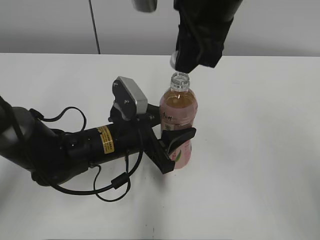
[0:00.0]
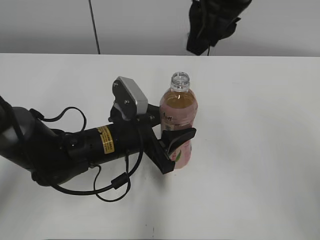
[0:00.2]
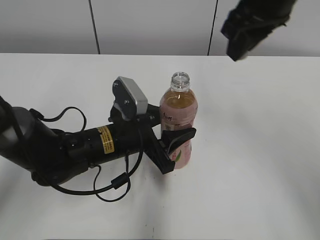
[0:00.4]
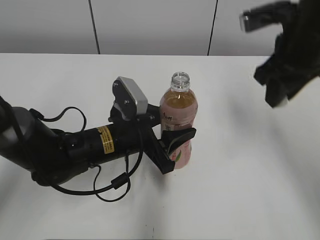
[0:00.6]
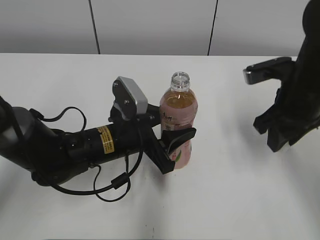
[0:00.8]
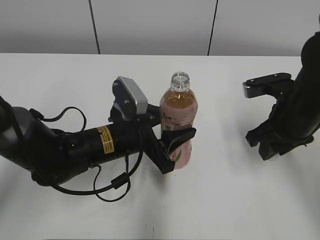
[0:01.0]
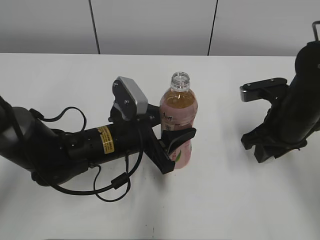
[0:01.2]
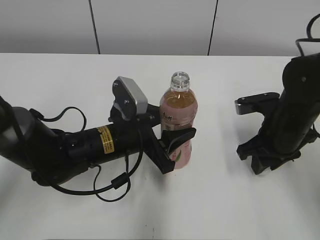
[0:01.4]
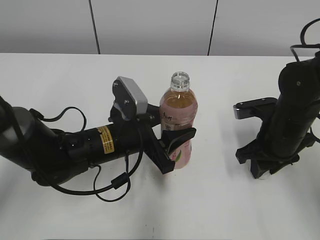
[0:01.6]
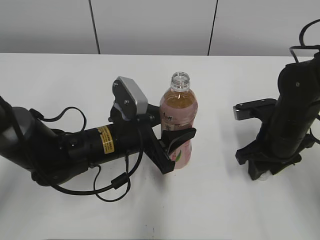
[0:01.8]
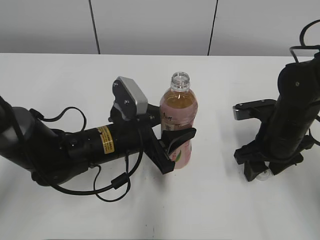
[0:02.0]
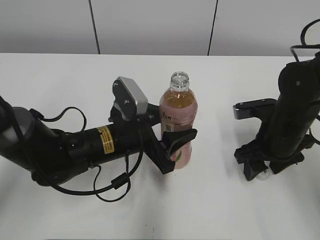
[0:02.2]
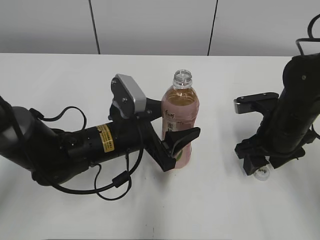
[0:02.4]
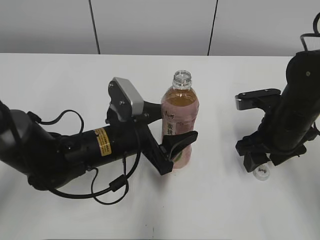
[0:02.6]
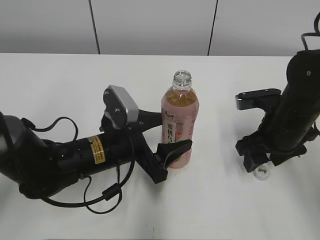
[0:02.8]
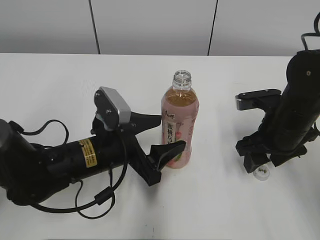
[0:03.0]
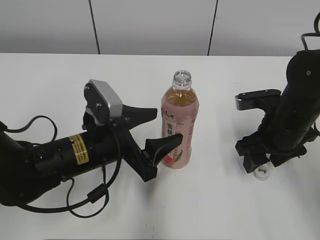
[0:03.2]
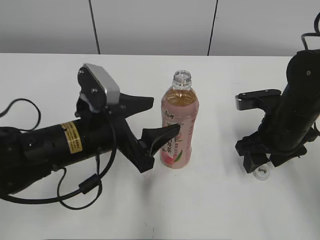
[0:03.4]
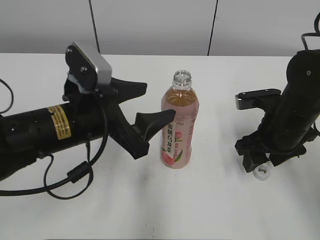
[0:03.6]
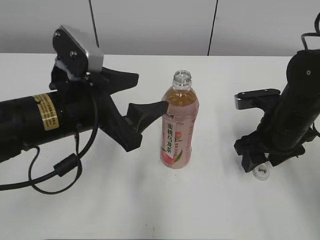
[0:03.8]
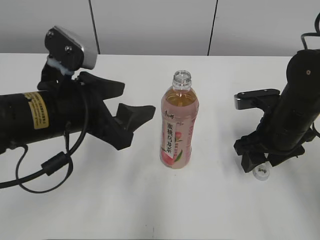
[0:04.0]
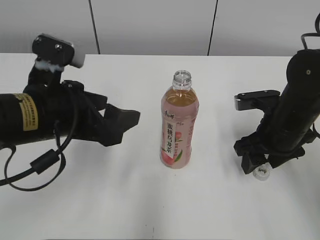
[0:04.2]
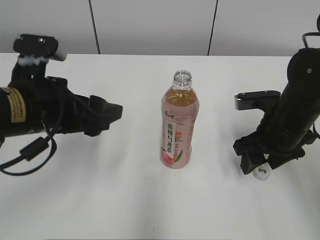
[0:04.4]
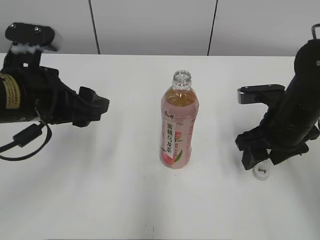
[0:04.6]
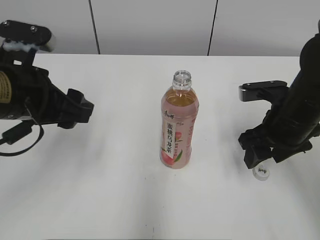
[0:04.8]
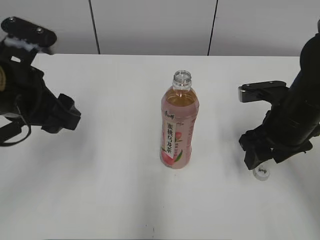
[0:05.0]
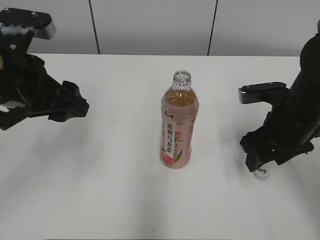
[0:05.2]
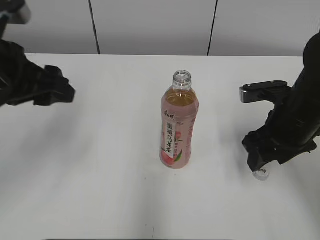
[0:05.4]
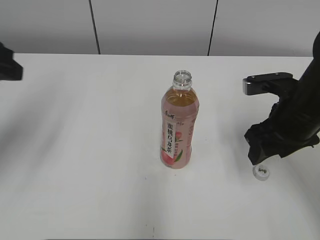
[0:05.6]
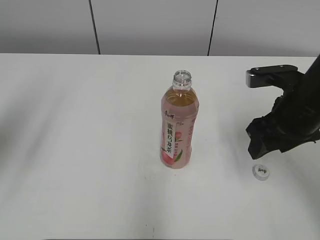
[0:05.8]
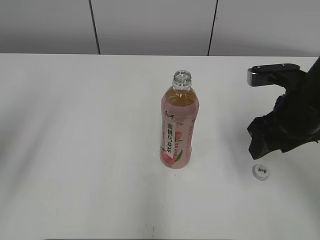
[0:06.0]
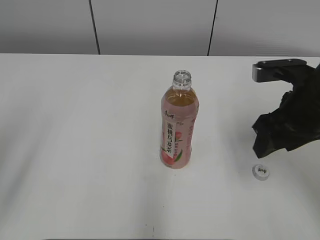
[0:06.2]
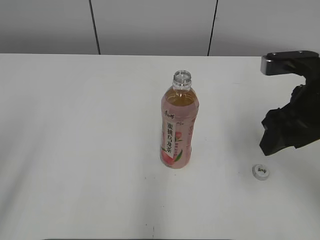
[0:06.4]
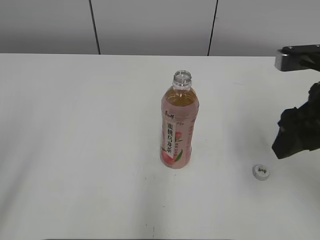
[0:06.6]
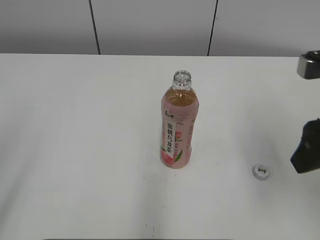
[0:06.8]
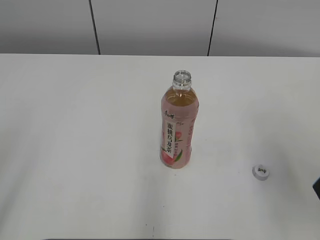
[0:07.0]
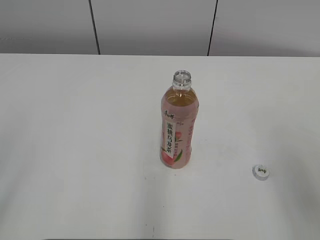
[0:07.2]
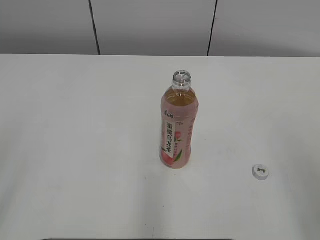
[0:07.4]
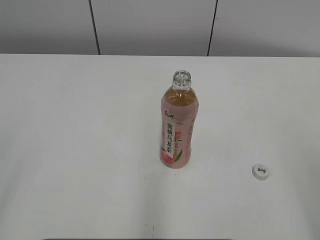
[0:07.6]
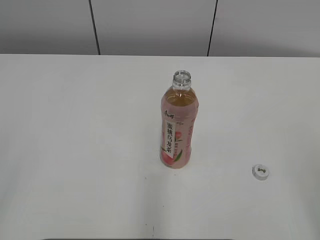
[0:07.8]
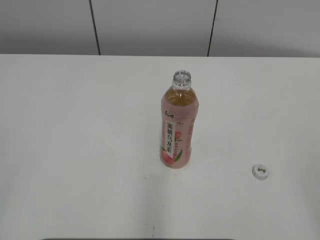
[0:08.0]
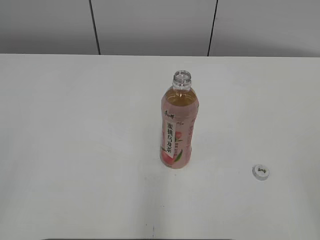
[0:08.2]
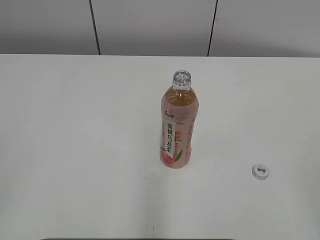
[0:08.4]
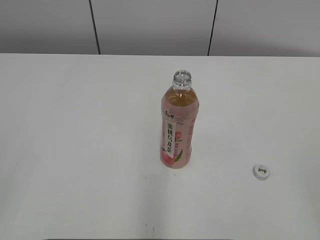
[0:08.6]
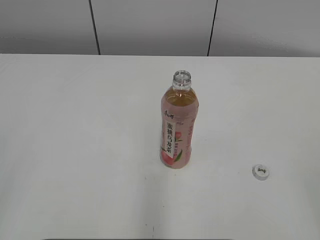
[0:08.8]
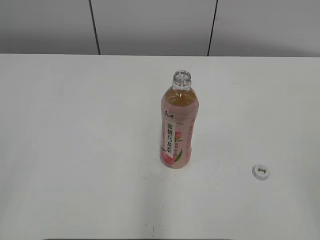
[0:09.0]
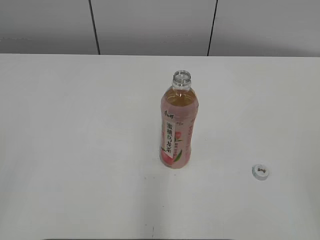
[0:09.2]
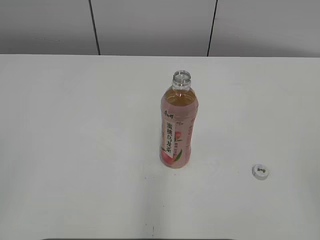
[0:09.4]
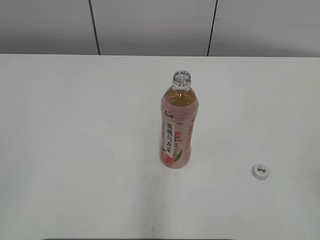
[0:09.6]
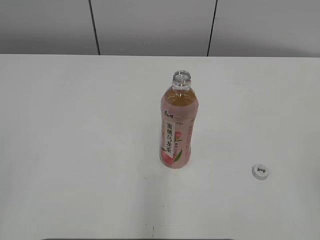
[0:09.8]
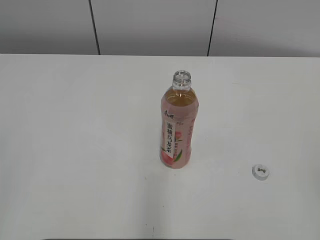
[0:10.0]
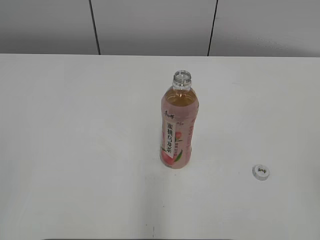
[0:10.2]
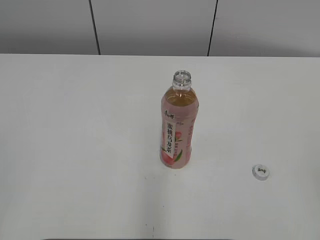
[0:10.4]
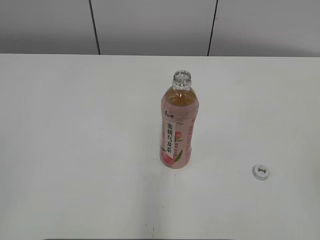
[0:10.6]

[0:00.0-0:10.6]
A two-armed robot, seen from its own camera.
Step, 0:00.0 to 0:02.2: Place the bottle cap on the right.
Step, 0:02.4 to 0:03.0: Place the Peach Oolong Tea with the left hand.
0:00.0 to 0:01.6: The right gripper moves downward and to the right, roughly 25 cm.
0:01.6 to 0:03.0: The right gripper opens its fingers. Meanwhile the left gripper opens its fingers.
0:03.0 to 0:04.6: The left gripper moves upward and to the left, about 15 cm.
0:04.6 to 0:06.0: The right gripper shifts roughly 5 cm upward, while the left gripper moves to the left, upward and backward, some 20 cm.
0:06.0 to 0:07.6: The right gripper shifts about 20 cm backward.

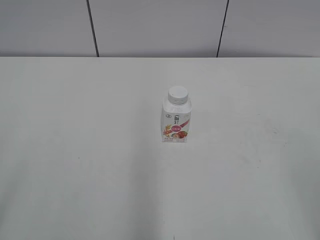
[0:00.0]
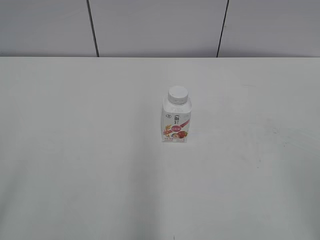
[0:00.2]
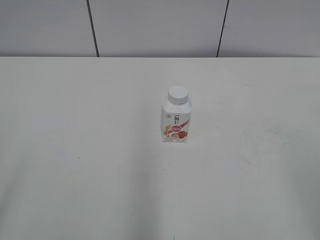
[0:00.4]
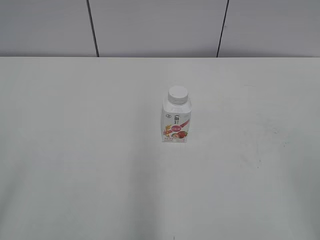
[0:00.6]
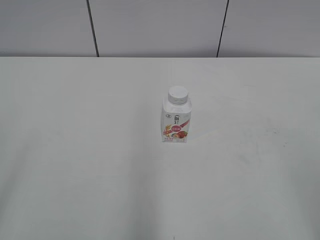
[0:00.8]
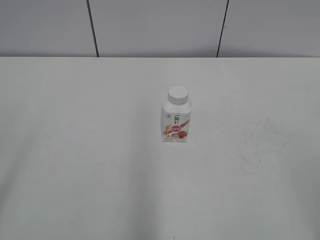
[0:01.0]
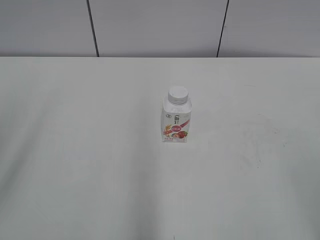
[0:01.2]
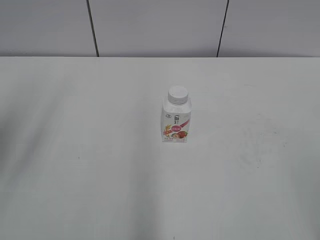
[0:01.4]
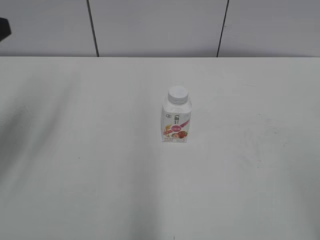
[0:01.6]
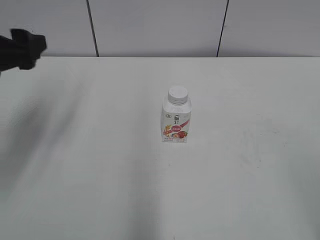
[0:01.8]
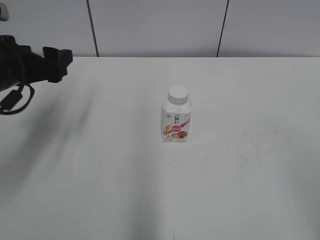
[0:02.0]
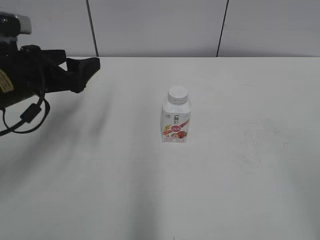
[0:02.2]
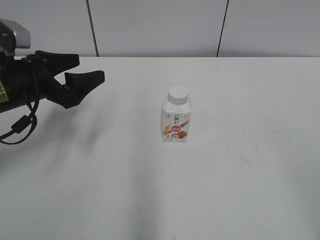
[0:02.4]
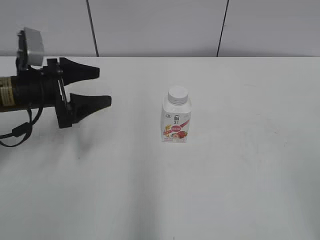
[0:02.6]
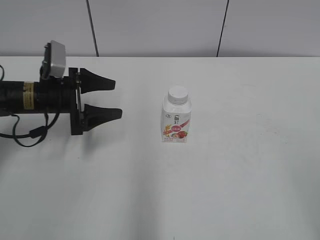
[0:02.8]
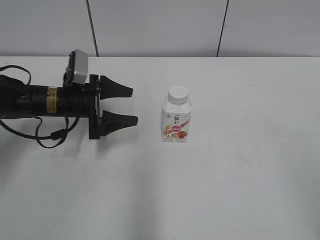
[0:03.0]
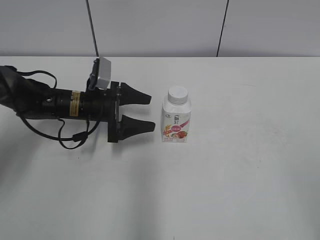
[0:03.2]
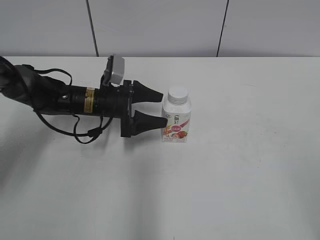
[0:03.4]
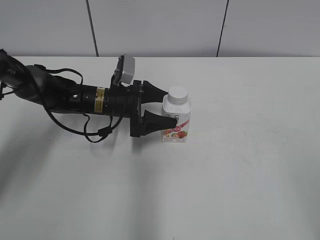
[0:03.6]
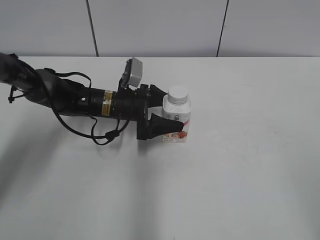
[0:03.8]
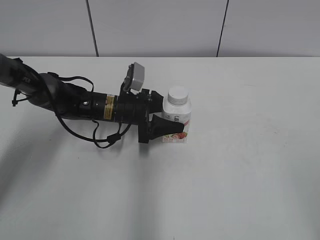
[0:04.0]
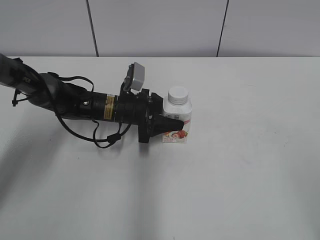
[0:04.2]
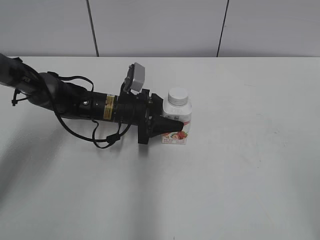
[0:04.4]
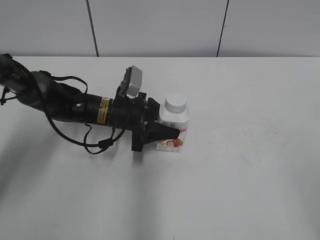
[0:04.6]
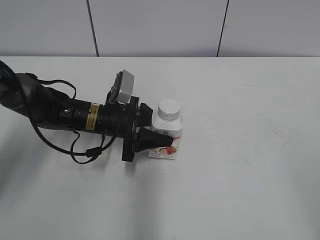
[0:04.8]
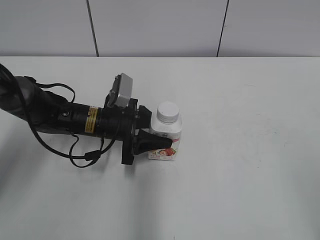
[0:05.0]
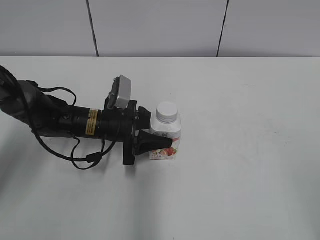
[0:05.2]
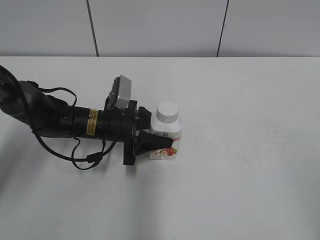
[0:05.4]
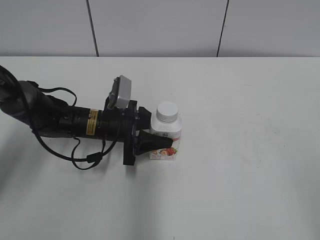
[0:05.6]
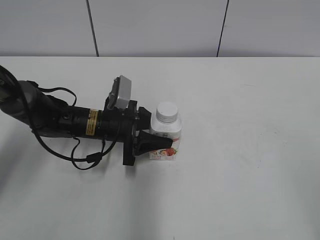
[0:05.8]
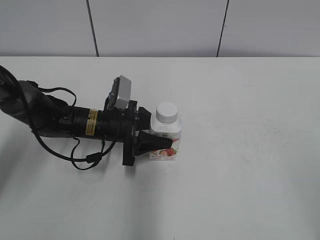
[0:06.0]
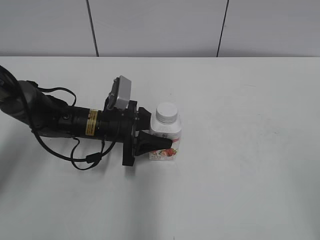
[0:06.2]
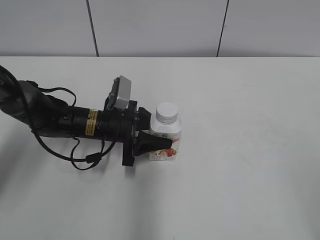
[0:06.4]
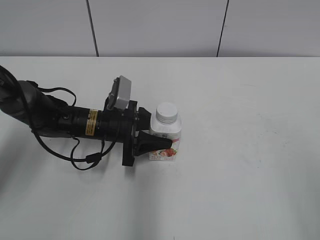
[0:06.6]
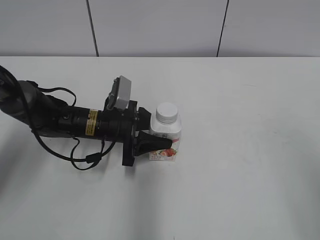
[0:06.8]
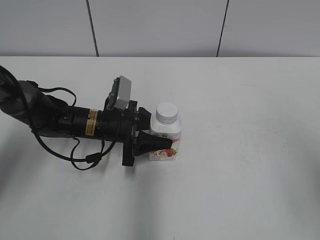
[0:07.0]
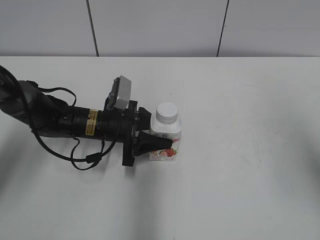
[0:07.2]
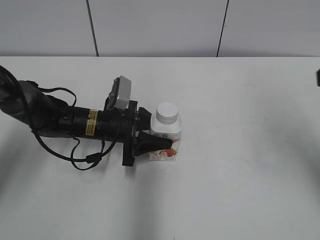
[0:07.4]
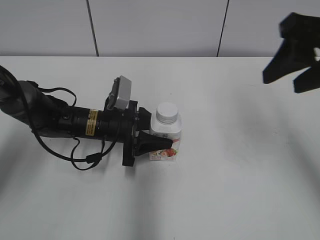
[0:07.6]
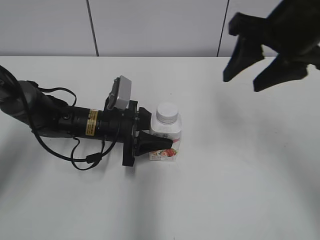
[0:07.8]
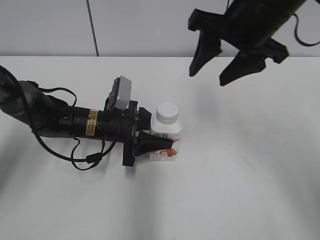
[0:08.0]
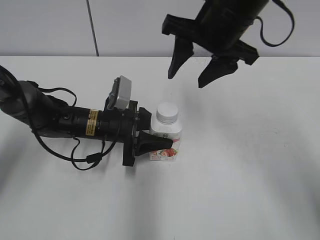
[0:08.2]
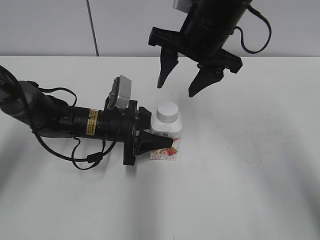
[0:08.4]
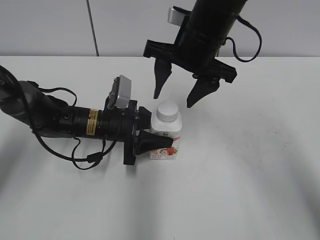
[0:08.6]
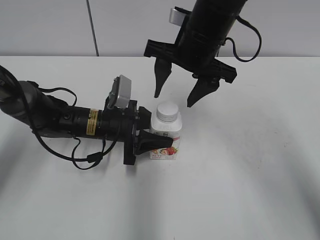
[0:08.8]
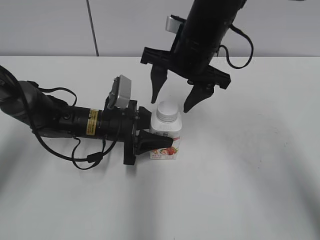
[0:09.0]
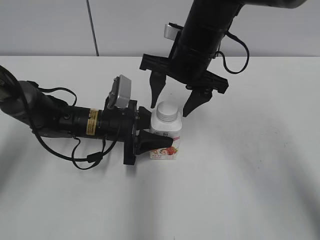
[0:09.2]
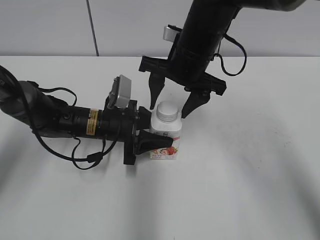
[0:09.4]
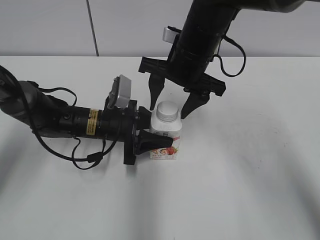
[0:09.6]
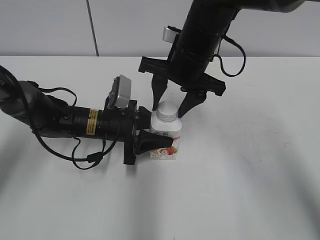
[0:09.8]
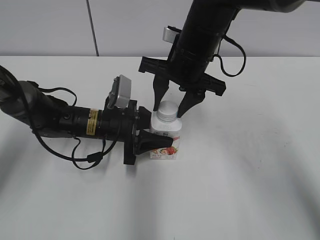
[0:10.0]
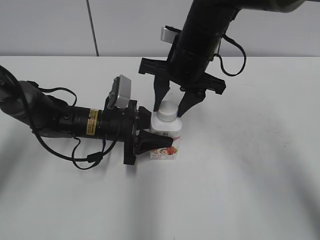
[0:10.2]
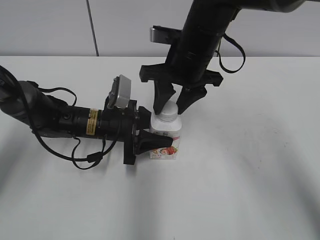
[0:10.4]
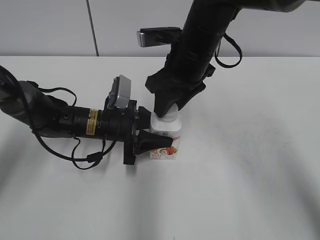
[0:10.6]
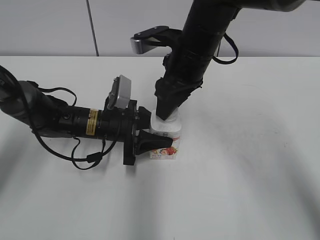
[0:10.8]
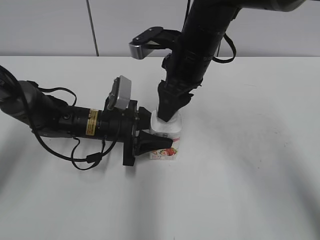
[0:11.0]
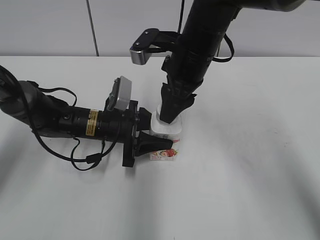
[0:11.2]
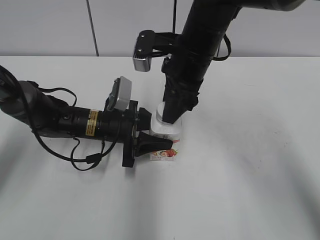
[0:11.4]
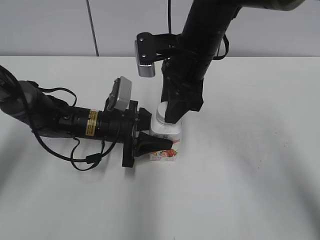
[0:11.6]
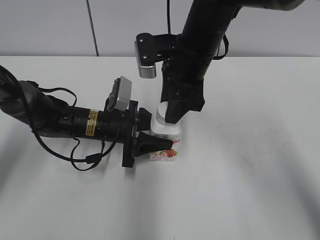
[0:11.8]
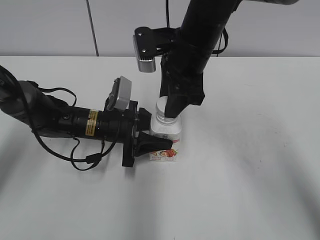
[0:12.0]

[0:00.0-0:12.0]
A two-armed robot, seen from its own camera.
Step, 0:00.0 to 0:04.2: Grab the Yili Changqing with the left hand.
Step, 0:04.4 to 0:07.2: Move the Yili Changqing from top to bottom.
0:01.6 to 0:03.0: The left gripper moves downward, forward and to the right, approximately 25 cm.
0:03.0 to 0:04.4: The left gripper goes roughly 10 cm to the right, and closes its fingers.
0:04.4 to 0:06.0: The left gripper changes place by about 5 cm.
0:06.0 to 0:07.6: The right gripper shifts some 25 cm forward.
0:07.6 to 0:09.0: The right gripper travels to the left, forward and downward by approximately 20 cm, and opens its fingers.
0:09.0 to 0:10.4: The right gripper closes its fingers.
